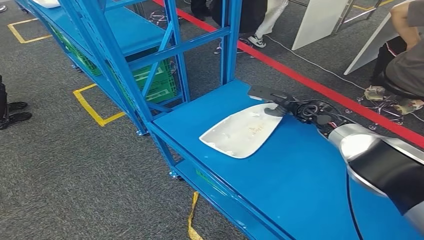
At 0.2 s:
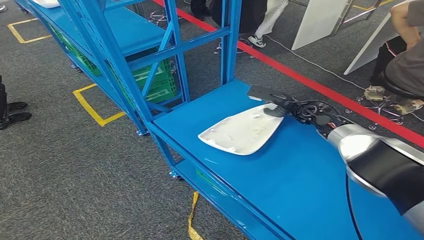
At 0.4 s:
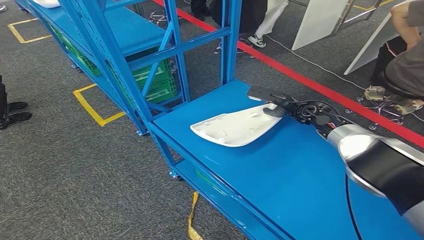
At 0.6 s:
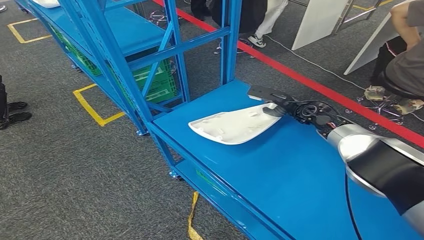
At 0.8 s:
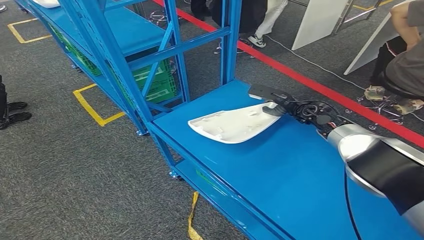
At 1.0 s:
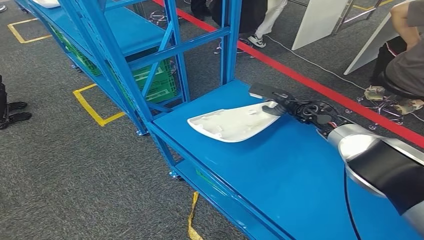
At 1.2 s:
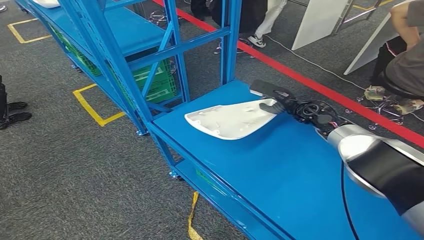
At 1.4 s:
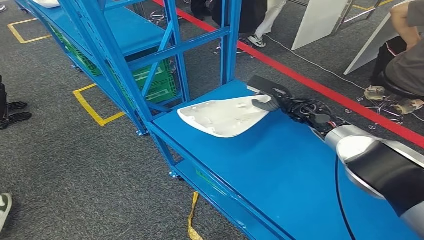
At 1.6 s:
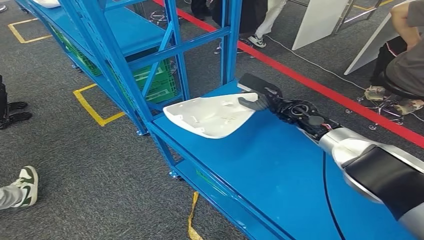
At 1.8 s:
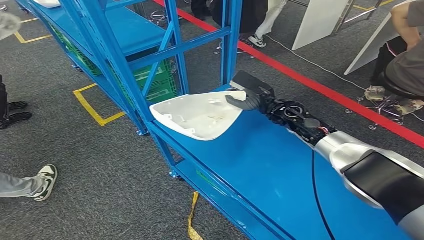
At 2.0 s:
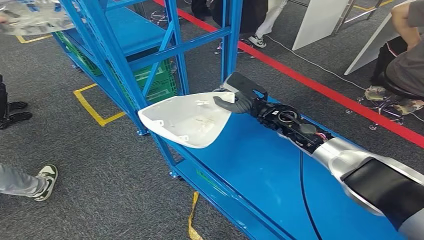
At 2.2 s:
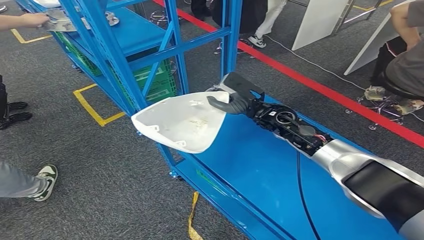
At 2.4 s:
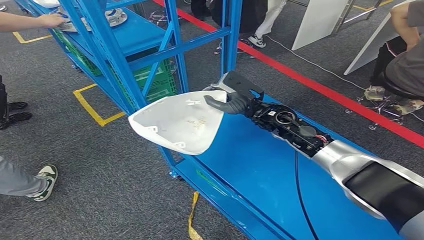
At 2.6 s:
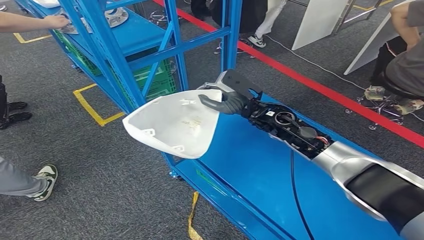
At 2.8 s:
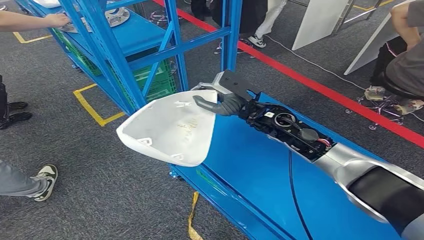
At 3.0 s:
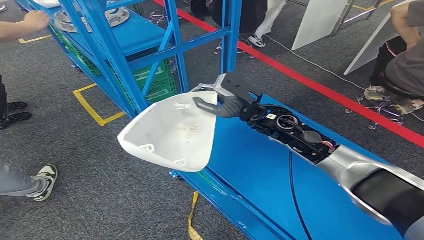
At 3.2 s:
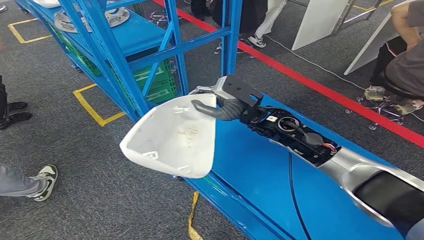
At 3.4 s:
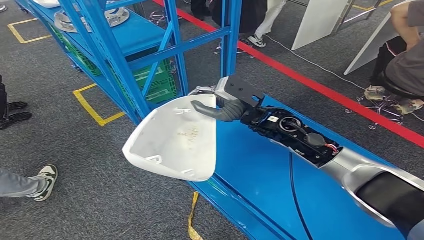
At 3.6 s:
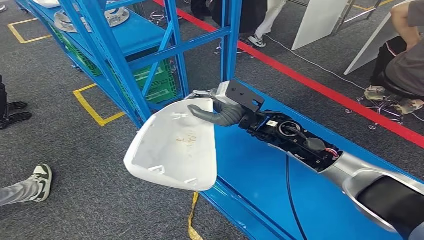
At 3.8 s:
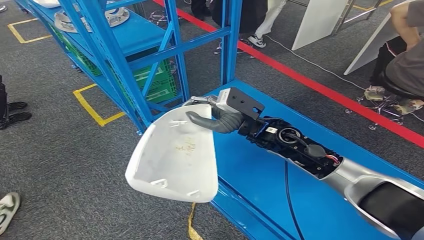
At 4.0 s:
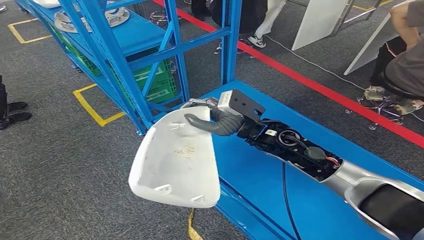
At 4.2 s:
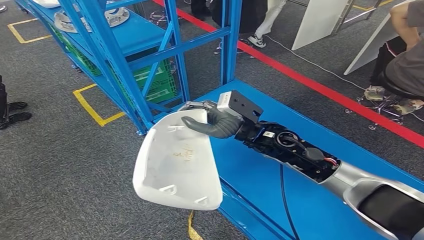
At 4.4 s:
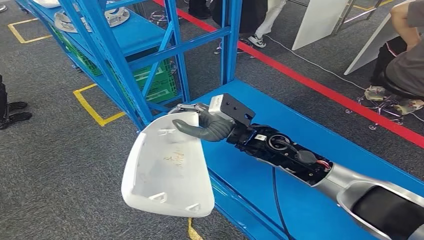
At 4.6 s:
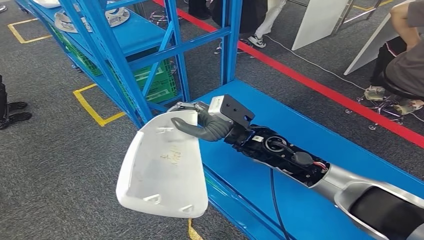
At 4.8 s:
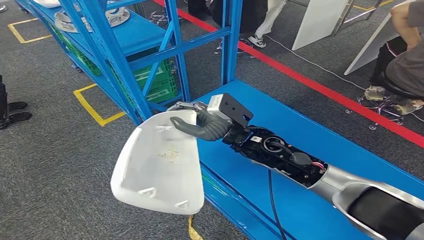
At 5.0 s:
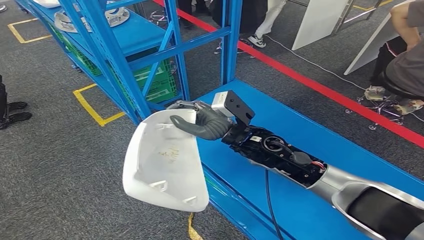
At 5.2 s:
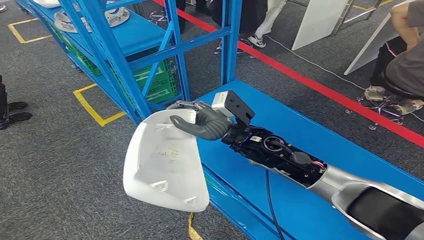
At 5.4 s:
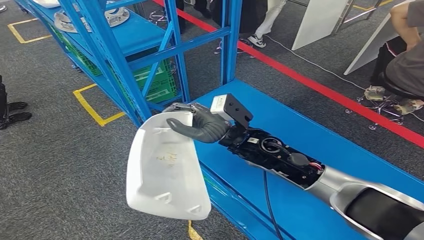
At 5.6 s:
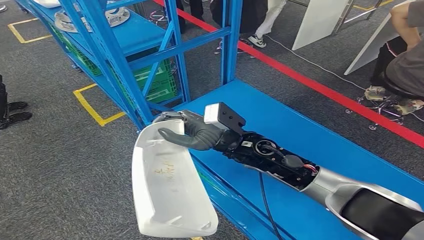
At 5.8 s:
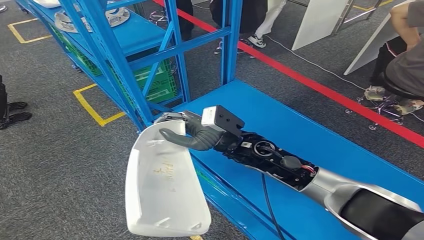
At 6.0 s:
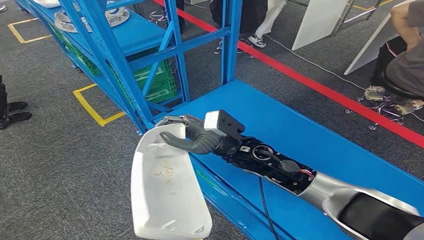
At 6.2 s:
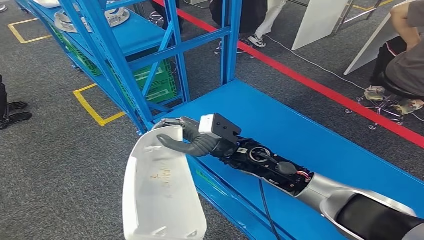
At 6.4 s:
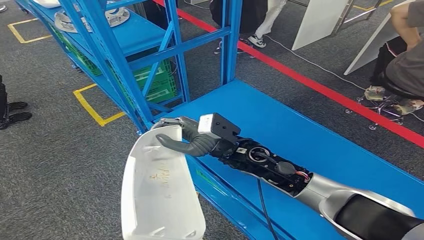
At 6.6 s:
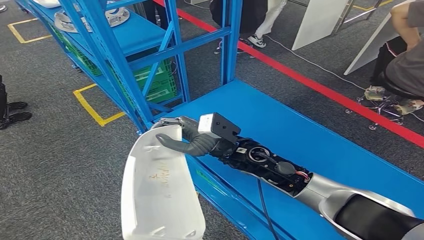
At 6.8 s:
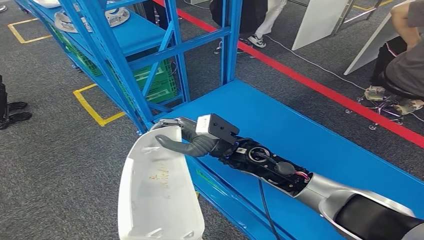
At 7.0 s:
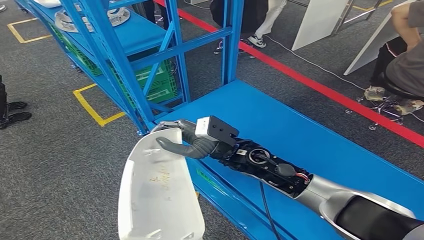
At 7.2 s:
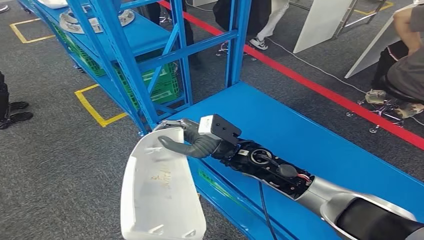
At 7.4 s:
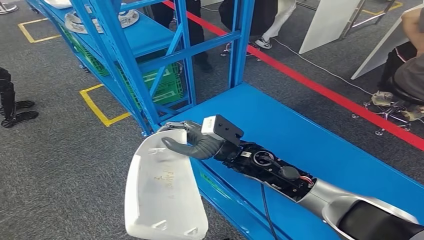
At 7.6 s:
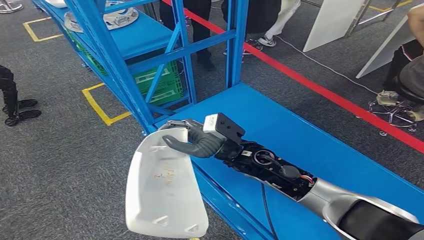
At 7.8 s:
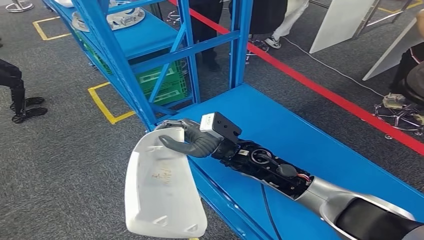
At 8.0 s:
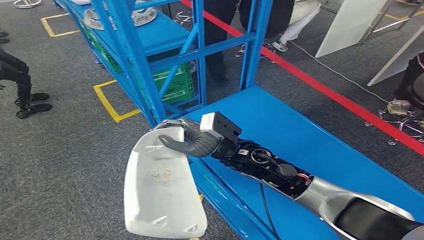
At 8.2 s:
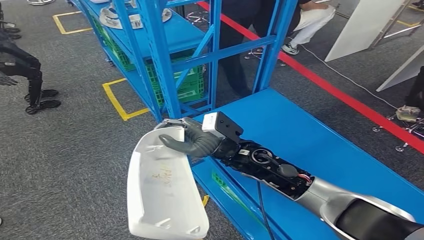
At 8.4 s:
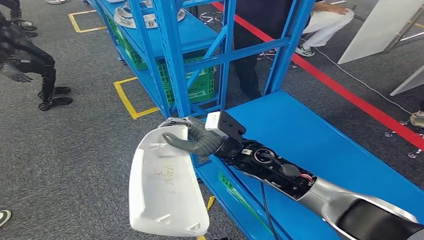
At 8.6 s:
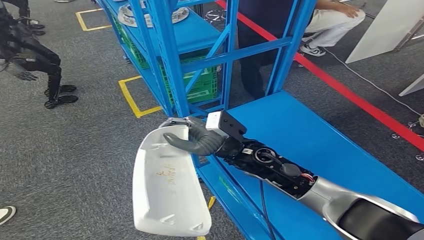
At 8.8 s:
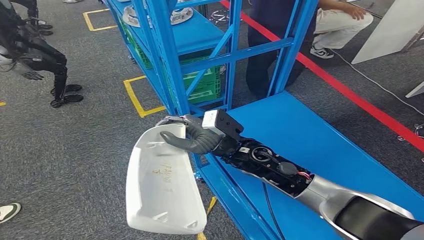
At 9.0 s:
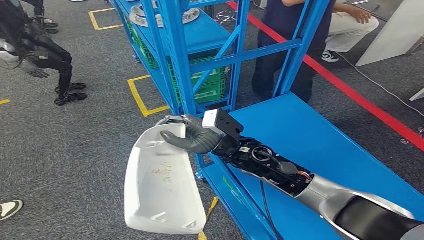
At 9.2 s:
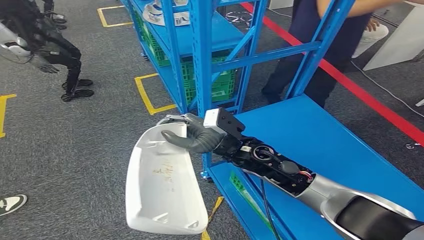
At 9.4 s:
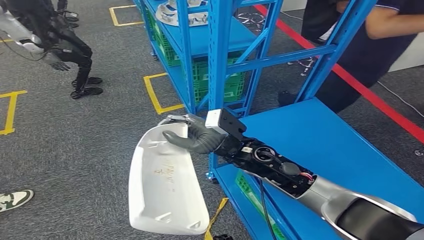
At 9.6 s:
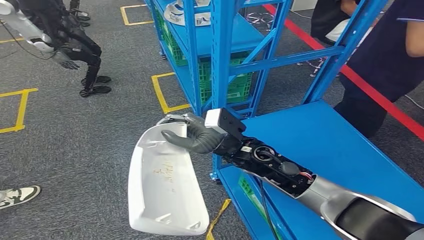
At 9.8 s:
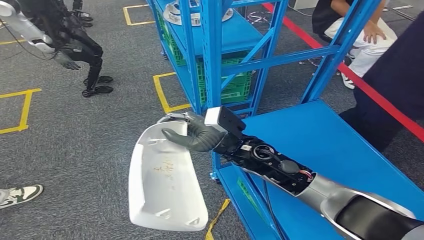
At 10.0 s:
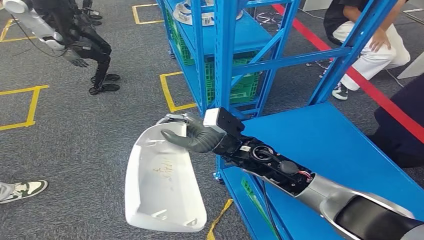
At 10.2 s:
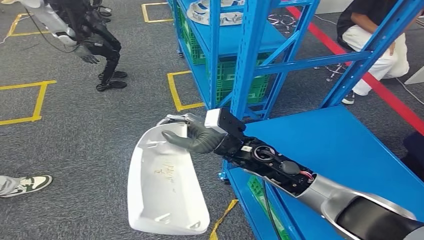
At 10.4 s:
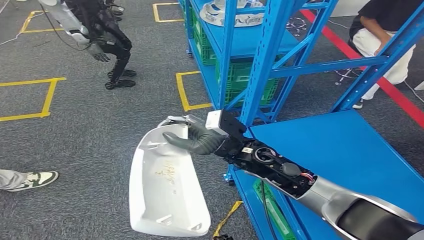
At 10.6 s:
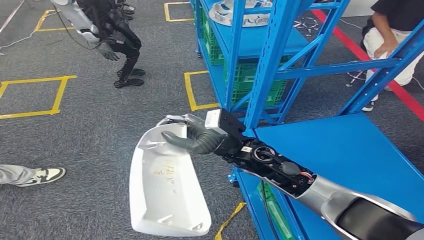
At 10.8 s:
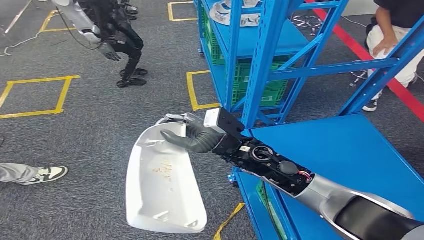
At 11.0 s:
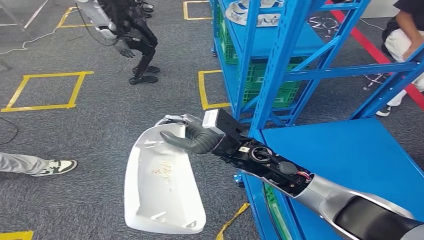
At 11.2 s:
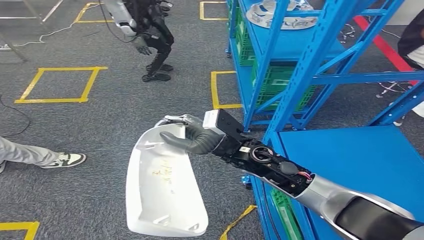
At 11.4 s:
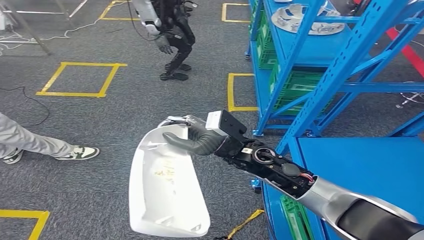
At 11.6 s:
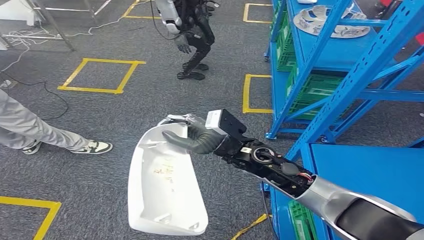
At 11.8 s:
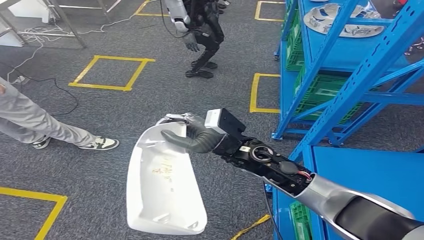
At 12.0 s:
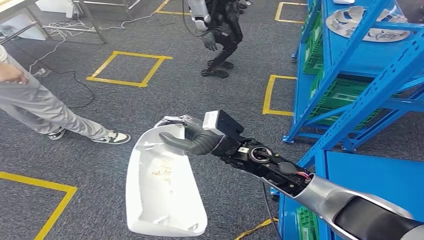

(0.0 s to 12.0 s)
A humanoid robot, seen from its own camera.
Step, 0.0 s - 2.2 s: Pick up the small component from the shelf.
1.6 s - 3.0 s: The right hand moves to the left, backward and upward, approximately 15 cm.
4.4 s - 6.0 s: There are only small adjustments of the hands.

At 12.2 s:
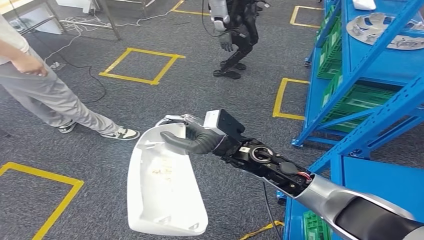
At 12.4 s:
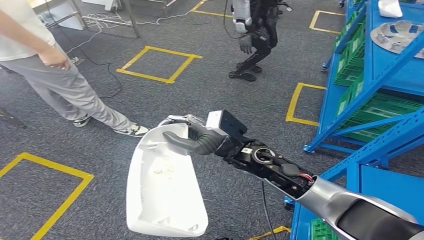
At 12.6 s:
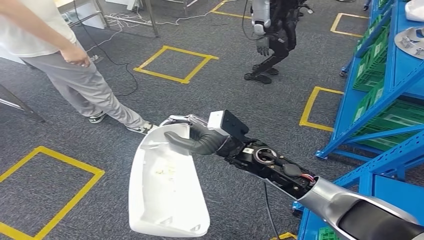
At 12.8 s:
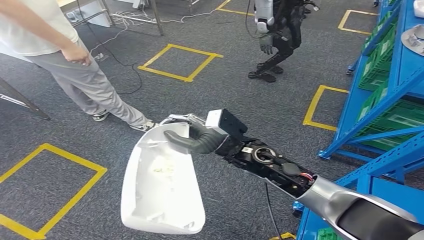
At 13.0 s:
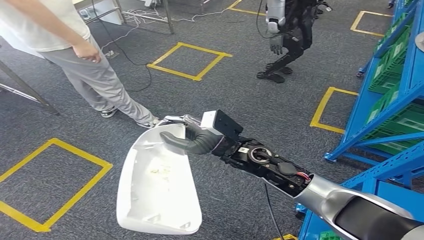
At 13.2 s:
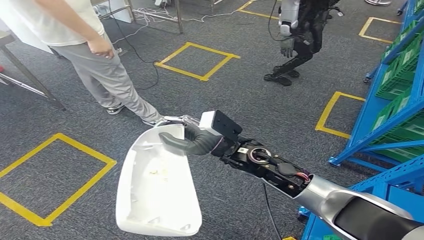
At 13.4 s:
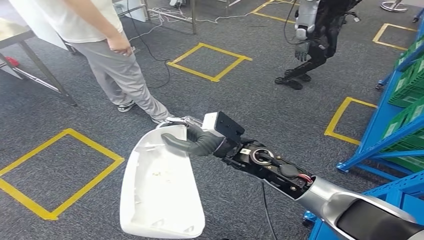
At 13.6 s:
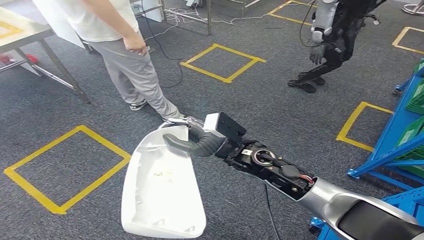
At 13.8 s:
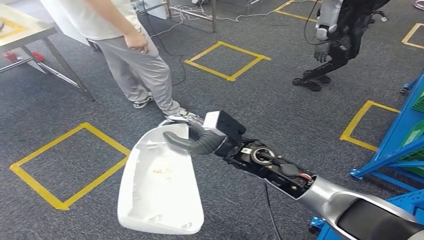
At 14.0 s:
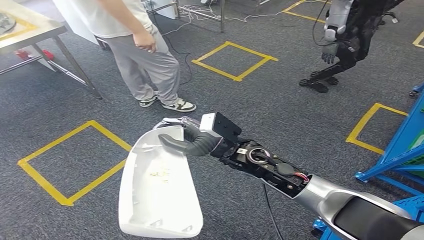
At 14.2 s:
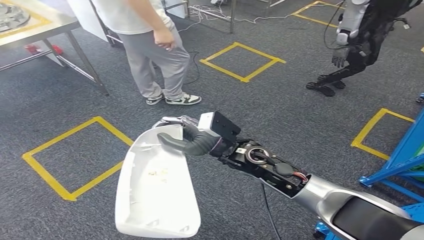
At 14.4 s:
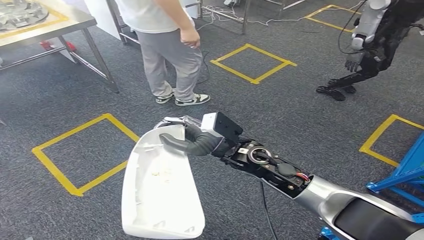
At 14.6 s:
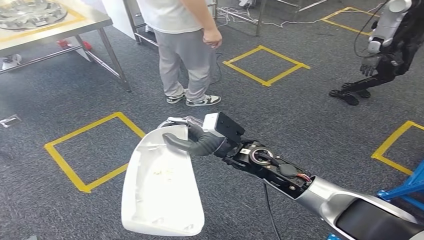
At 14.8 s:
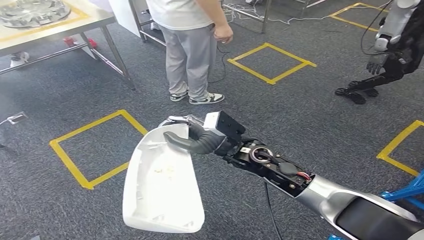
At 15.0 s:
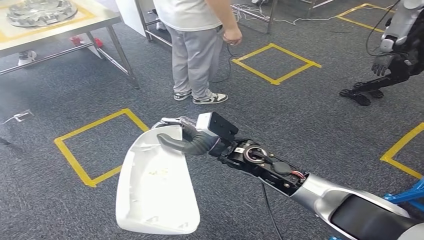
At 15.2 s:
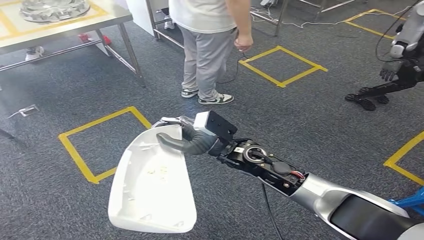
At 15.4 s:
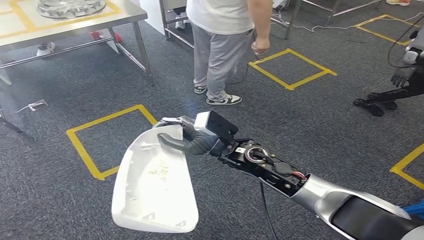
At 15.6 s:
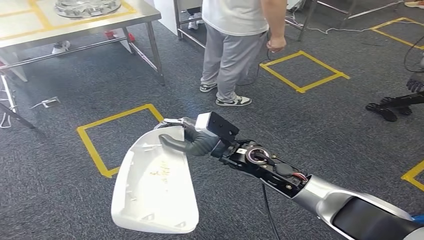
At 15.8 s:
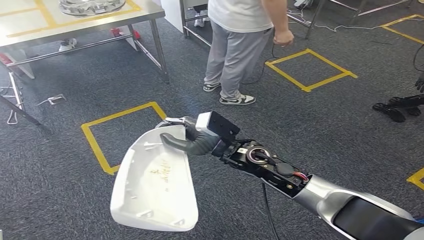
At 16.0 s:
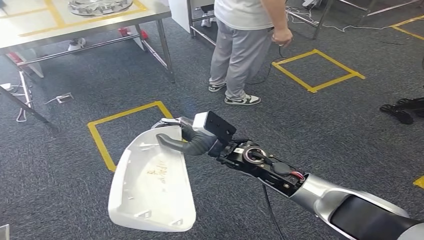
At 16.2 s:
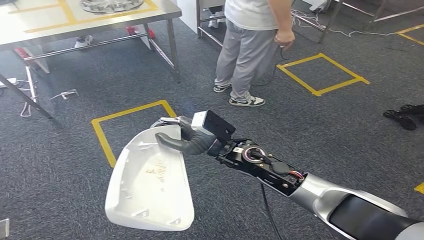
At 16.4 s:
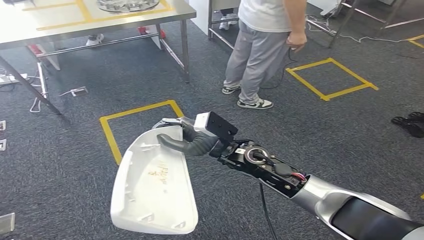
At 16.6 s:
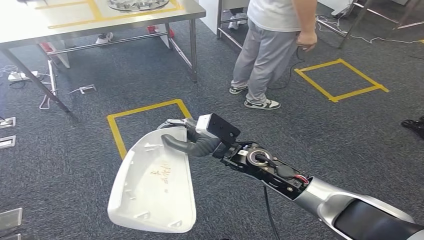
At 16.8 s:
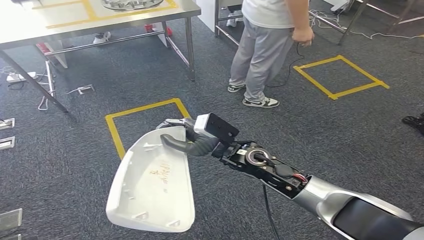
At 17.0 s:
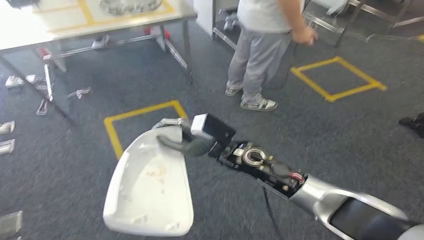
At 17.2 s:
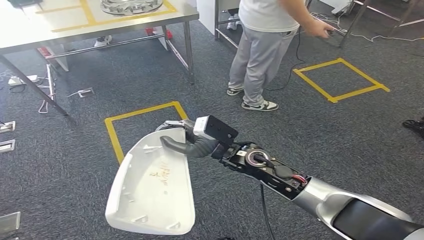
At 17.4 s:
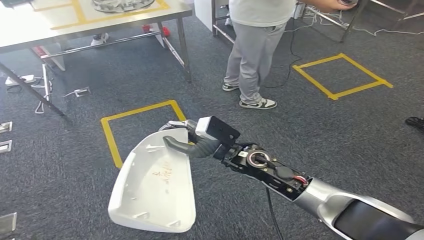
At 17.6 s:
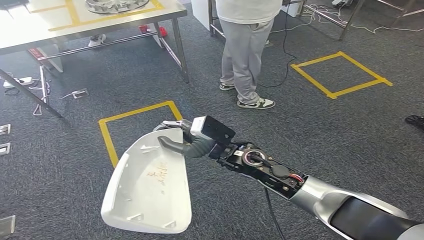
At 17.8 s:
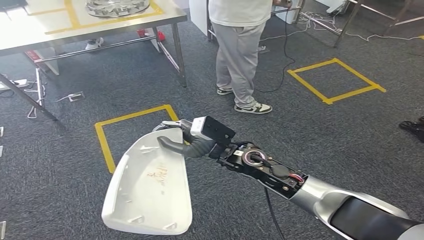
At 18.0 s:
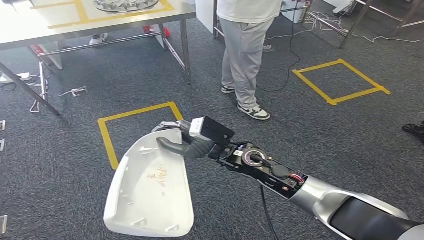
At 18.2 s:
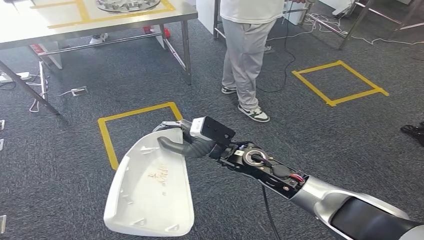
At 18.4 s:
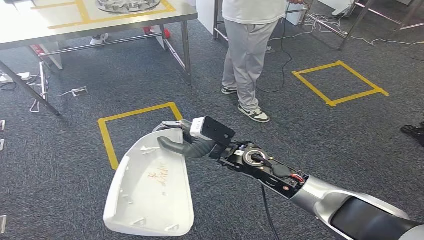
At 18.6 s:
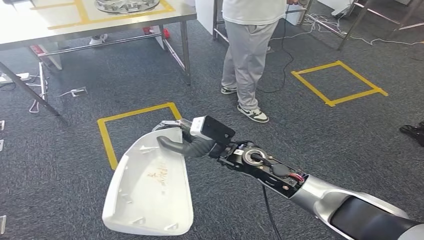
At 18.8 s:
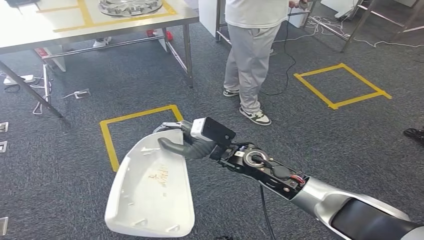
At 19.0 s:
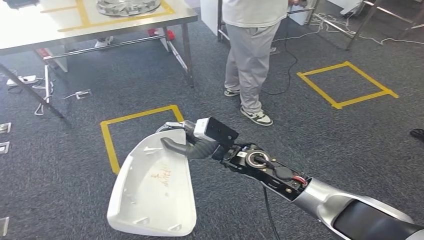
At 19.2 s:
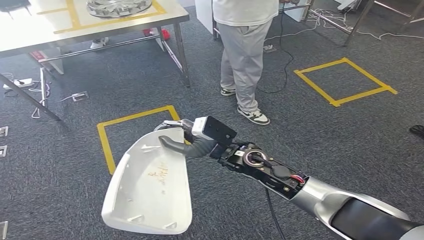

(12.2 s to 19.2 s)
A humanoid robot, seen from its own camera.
16.4 s - 19.2 s: Neither hand changes place.
